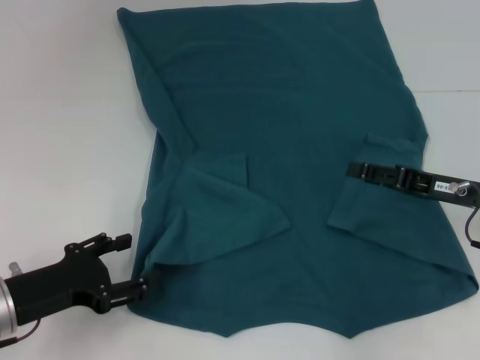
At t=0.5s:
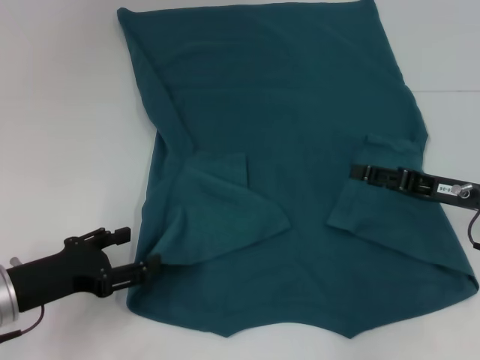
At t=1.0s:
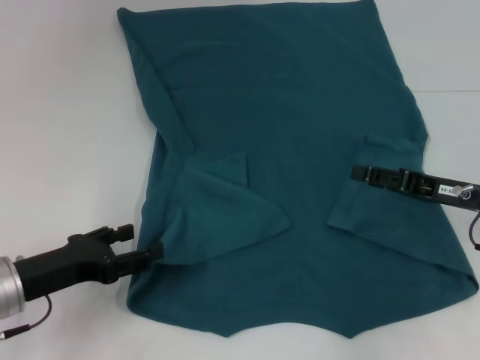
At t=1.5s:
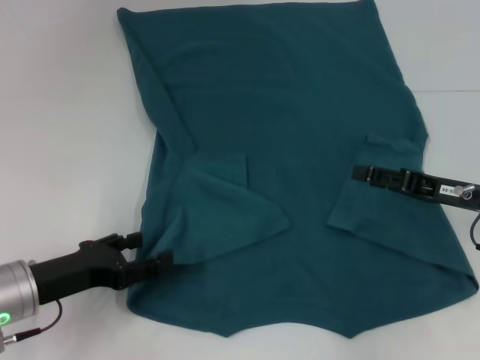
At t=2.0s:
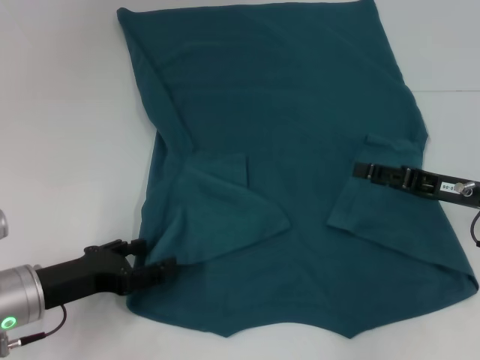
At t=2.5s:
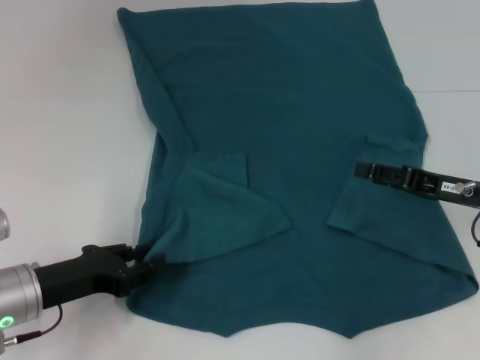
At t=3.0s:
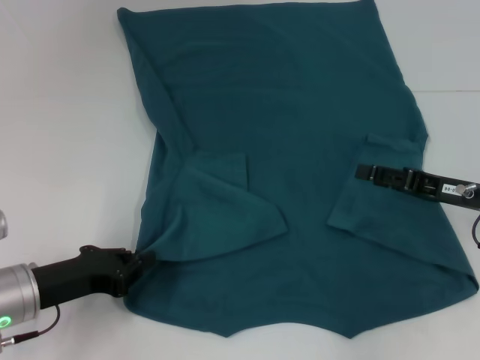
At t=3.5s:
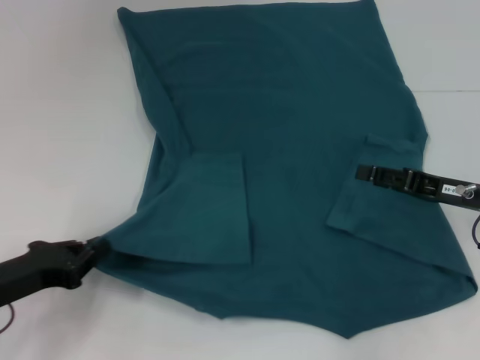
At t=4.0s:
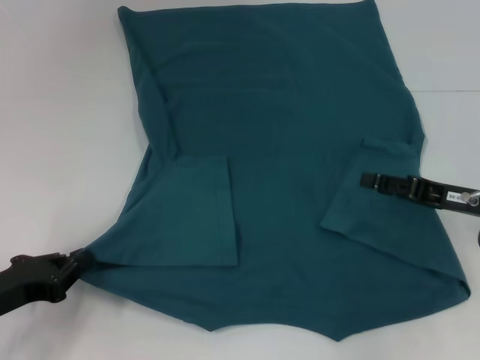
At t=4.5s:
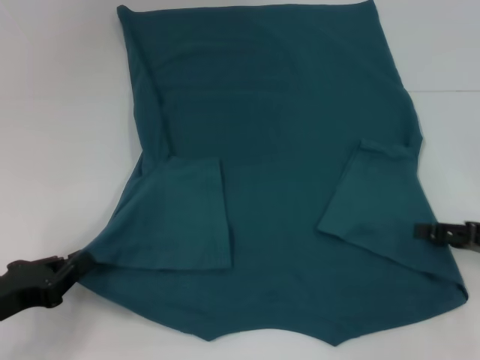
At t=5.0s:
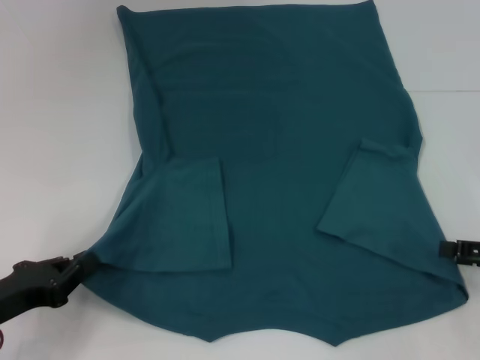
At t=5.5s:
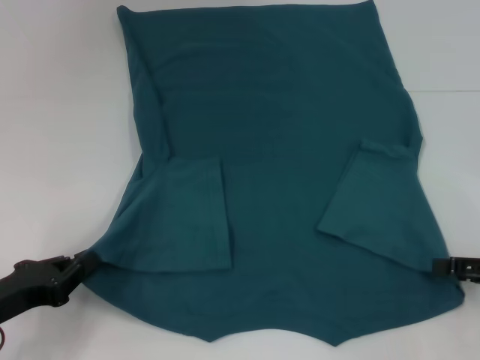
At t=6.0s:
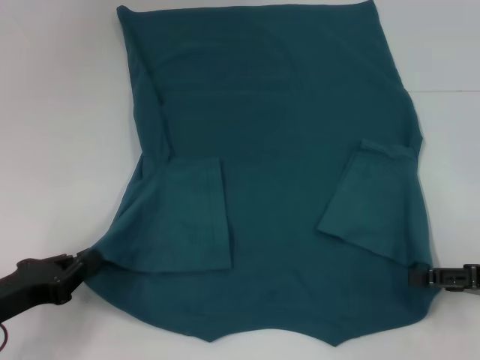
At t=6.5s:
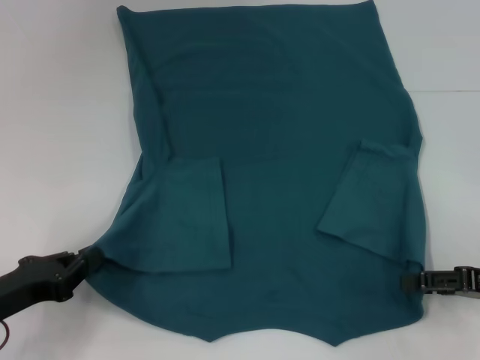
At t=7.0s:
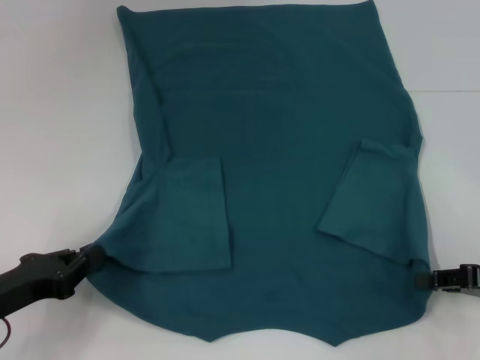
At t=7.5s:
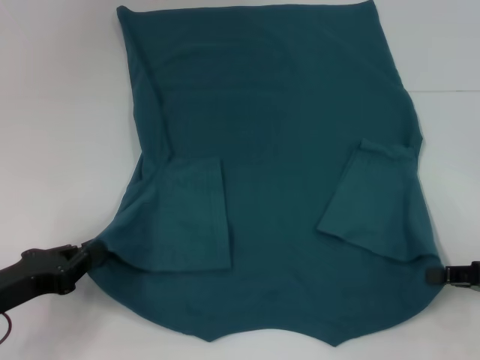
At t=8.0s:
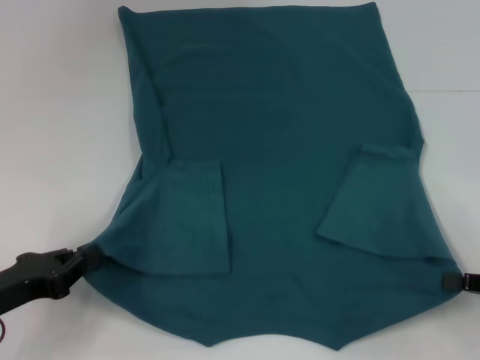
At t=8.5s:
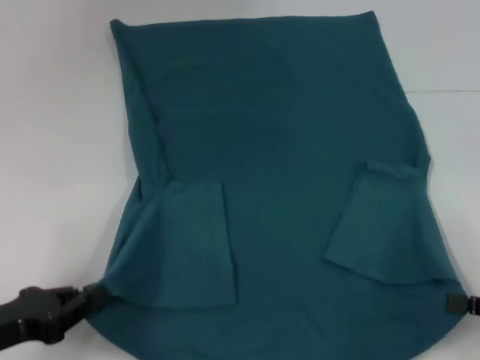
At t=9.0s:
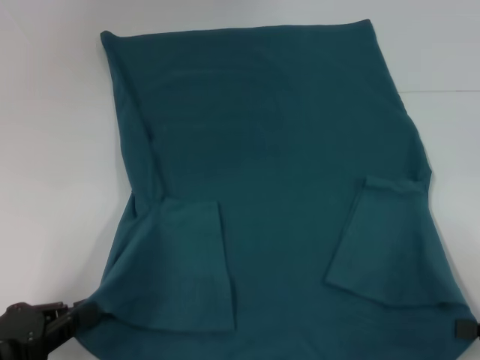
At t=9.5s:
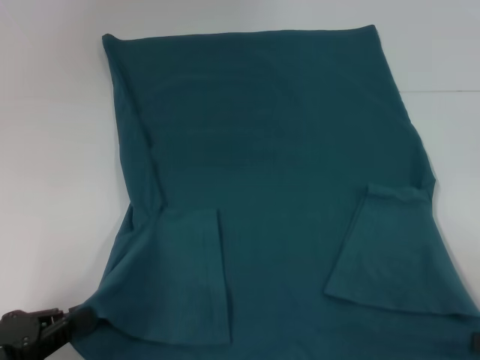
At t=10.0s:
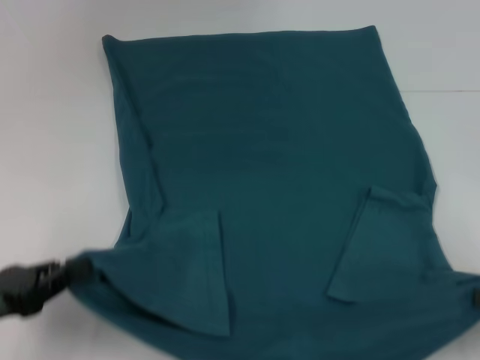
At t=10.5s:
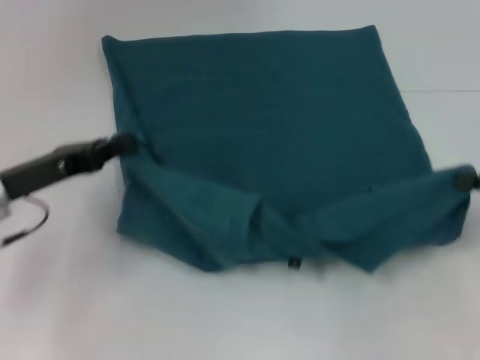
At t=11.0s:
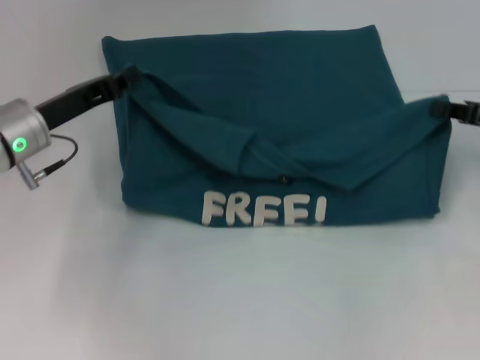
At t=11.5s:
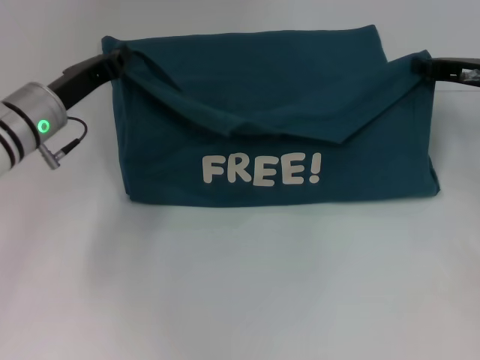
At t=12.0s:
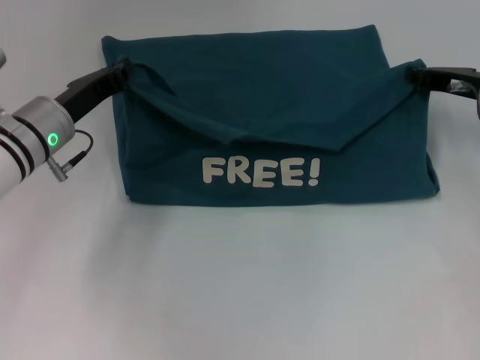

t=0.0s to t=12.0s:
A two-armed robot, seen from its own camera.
Step, t=0.0s to t=3.0s: Grab the bottom left corner with your left hand.
Step, t=3.5s to t=6.5s: Grab the bottom right corner with your right hand.
t=0.0s to t=2.0s: The grippers stay close to where they were, moving slightly.
t=2.0s to t=4.0s: The left gripper shifts roughly 5 cm to the left, and closes its fingers.
t=4.0s to t=6.0s: The right gripper travels backward and to the right by roughly 10 cm.
t=6.0s to t=8.0s: The right gripper closes its fingers.
t=10.0s to t=12.0s: The left gripper goes some 25 cm forward and to the right. Meanwhile the right gripper heads forward and to the left, covering approximately 25 cm.

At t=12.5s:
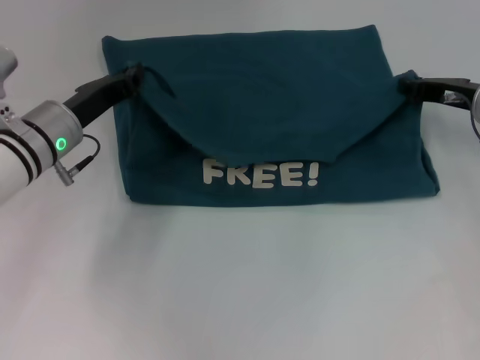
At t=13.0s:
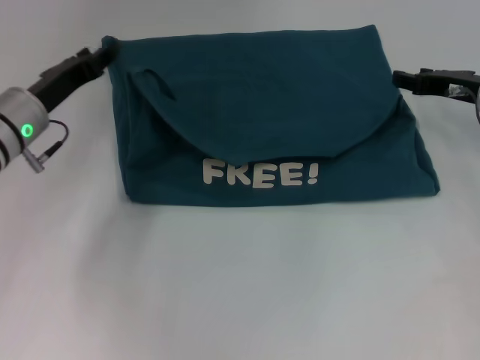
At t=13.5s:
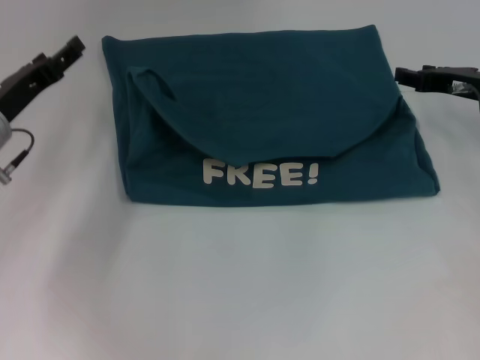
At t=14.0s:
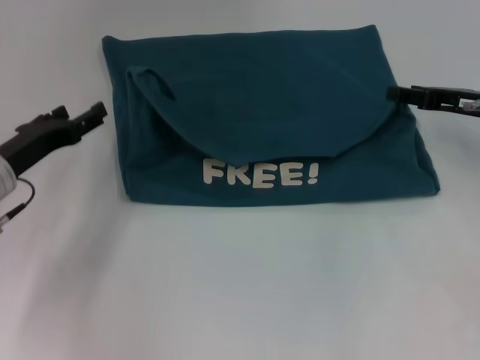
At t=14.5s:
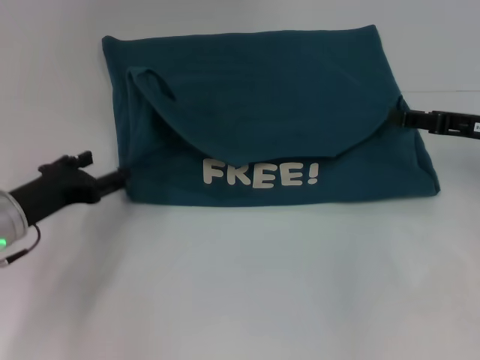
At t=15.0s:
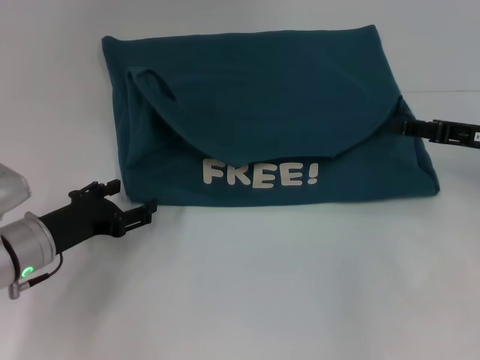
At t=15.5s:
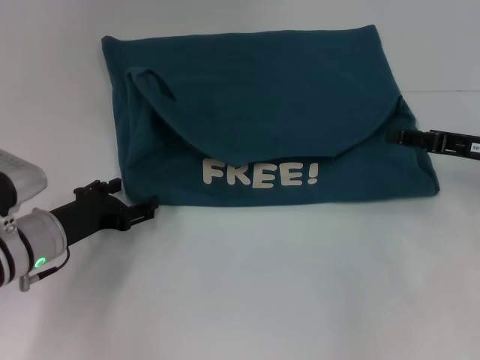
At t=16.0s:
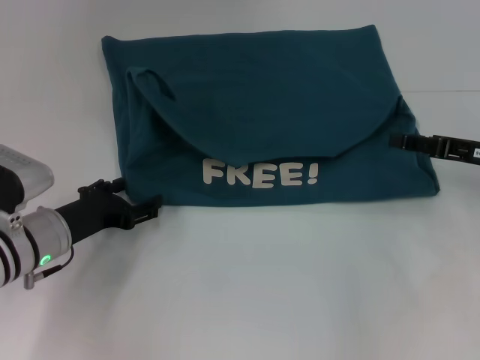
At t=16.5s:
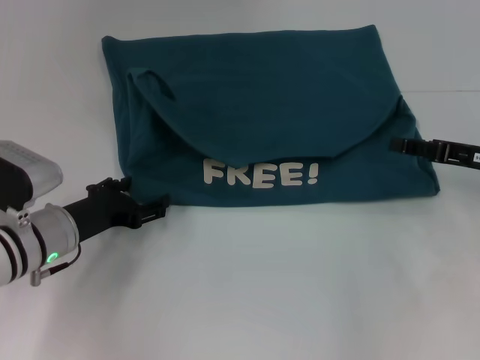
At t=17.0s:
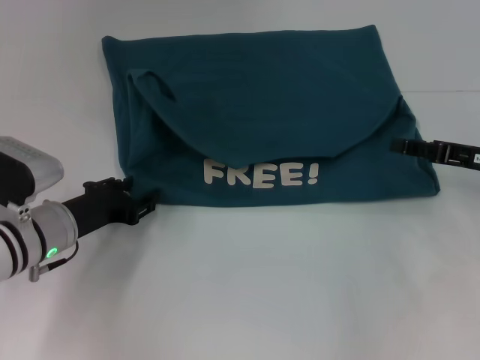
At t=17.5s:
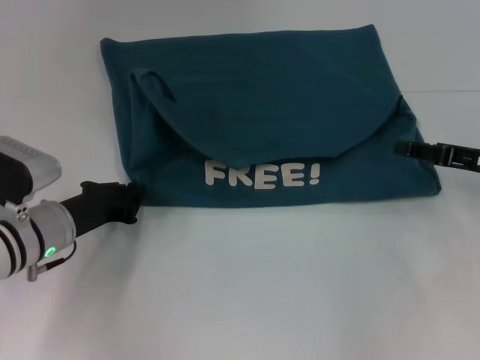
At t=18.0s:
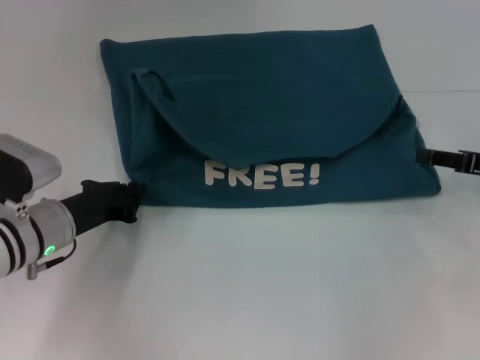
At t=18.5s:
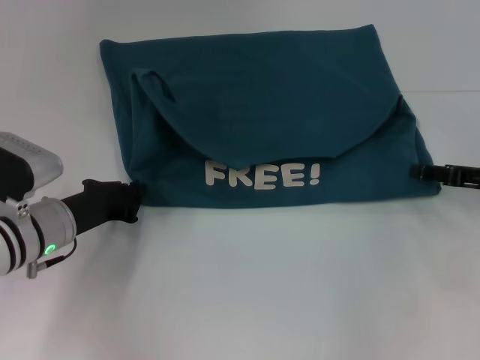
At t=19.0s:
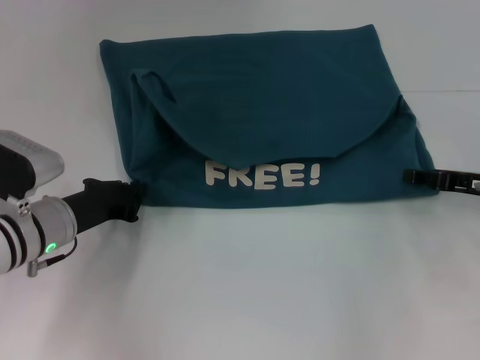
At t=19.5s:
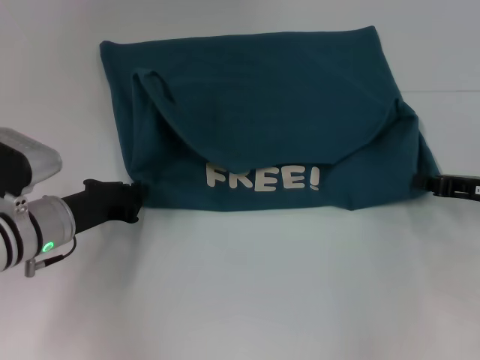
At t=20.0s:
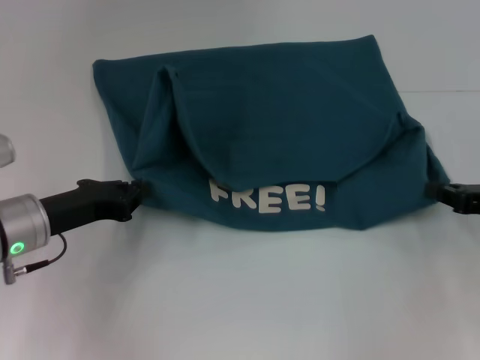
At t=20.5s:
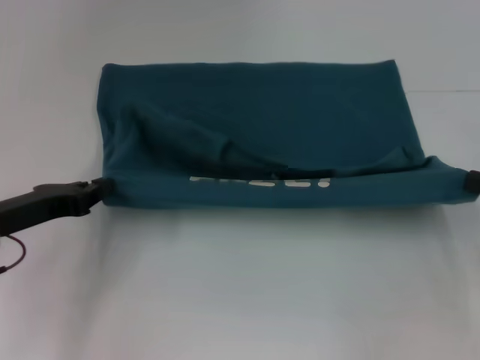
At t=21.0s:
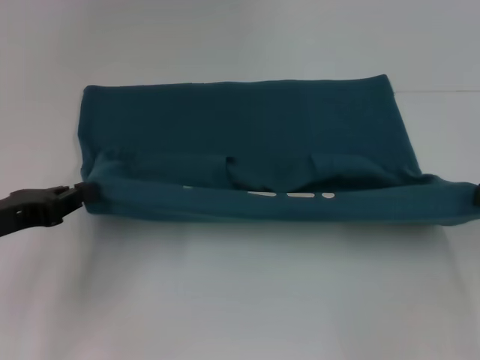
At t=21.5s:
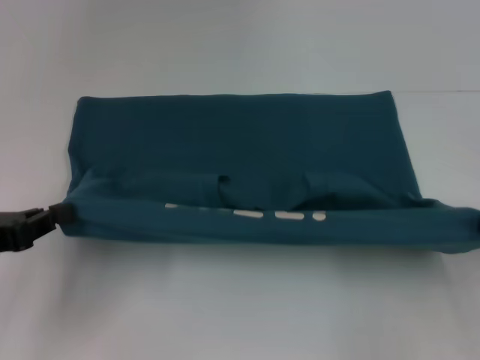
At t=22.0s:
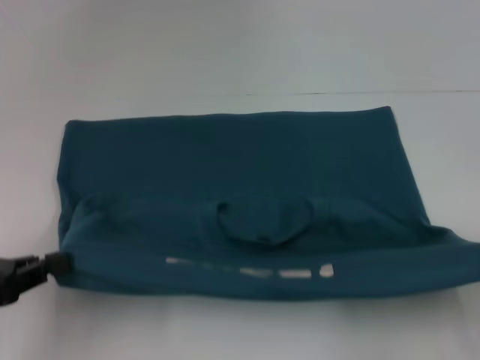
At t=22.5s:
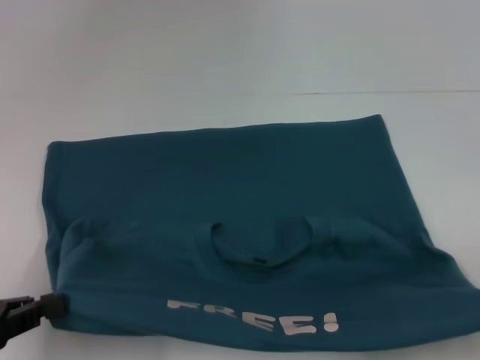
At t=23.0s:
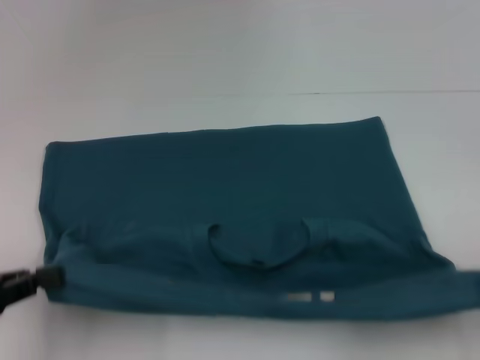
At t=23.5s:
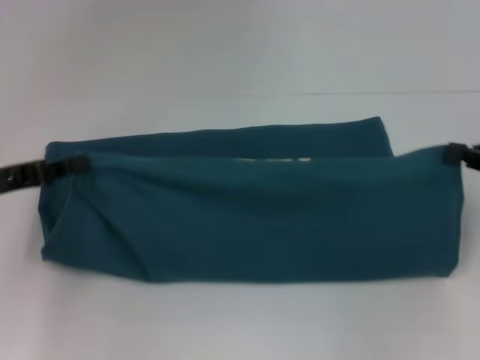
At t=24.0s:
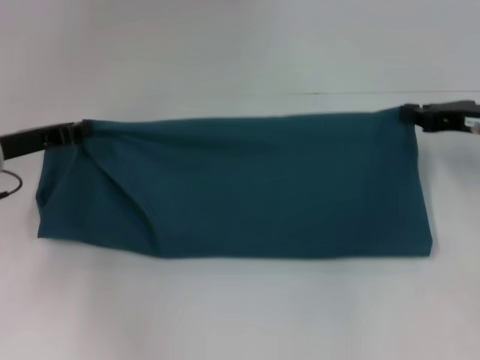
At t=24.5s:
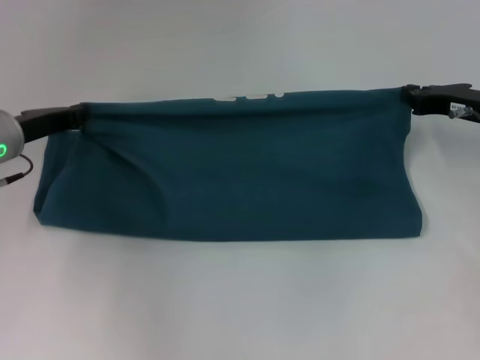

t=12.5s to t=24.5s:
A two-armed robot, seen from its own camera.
Step, t=13.5s to t=22.5s: Pull the clothes with your left hand.
Step, t=13.5s to t=22.5s: Pull the clothes with your right hand.
t=12.5s to t=14.5s: The right gripper goes roughly 5 cm backward, and opens up. Meanwhile the left gripper shifts about 10 cm backward and to the left, and opens its fingers.
t=14.5s to t=16.5s: The left gripper moves roughly 5 cm.
t=16.5s to t=18.5s: The left gripper closes its fingers.
t=18.5s to t=20.5s: The left gripper is displaced to the left and upward by approximately 10 cm, while the right gripper goes approximately 5 cm backward, and closes up.
t=20.5s to t=22.5s: The left gripper shifts about 15 cm backward and to the left; the right gripper goes some 10 cm backward.
t=22.5s to t=24.5s: The left gripper is displaced forward by approximately 20 cm; the right gripper moves forward and to the left, about 25 cm.

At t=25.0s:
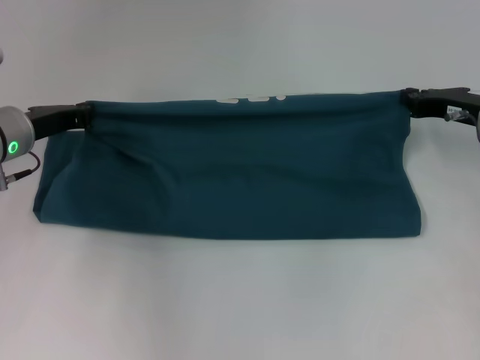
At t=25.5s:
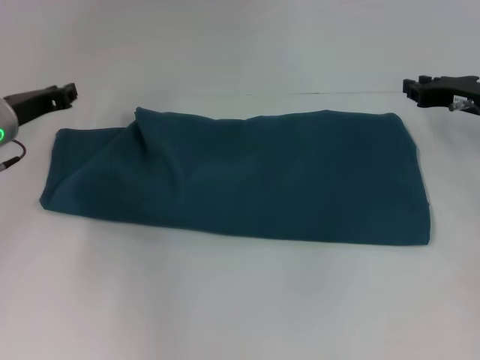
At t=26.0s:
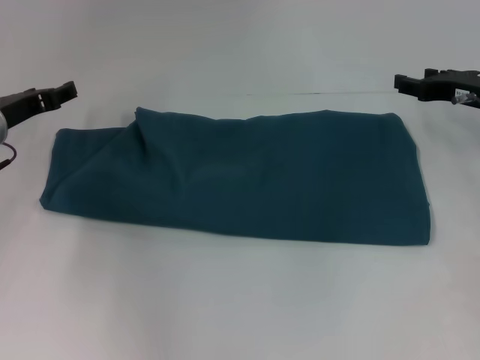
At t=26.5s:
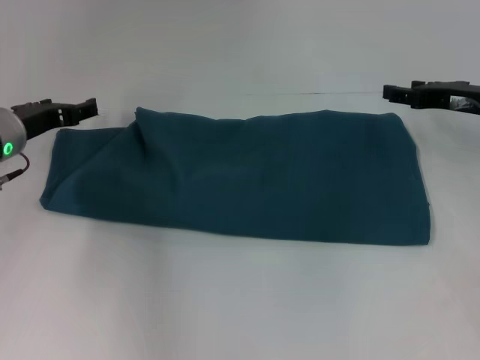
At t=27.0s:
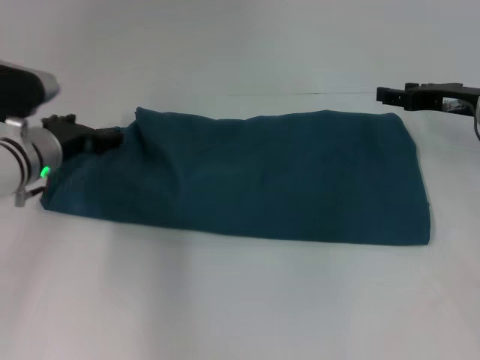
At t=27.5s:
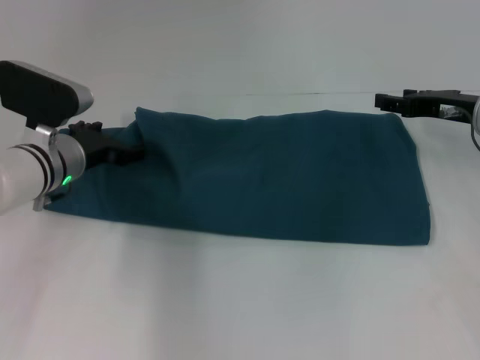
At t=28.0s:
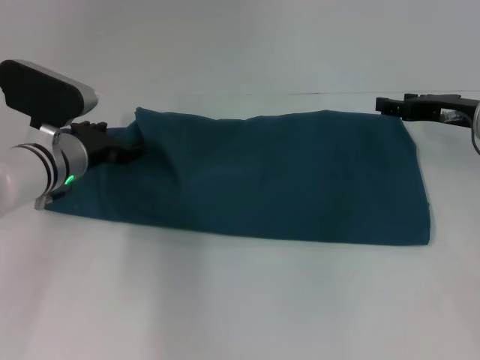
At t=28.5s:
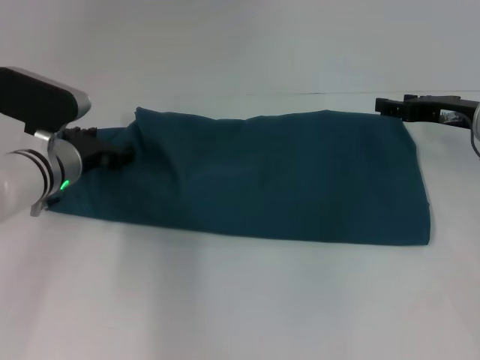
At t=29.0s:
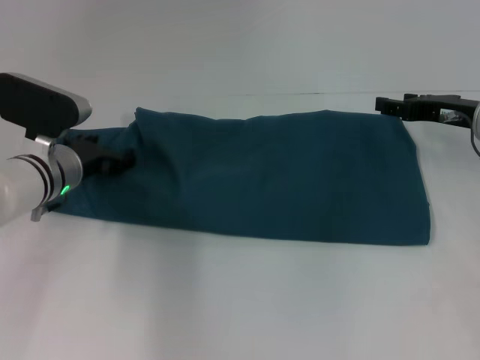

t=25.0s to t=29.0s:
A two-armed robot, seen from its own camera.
t=25.0s to t=27.0s: The right gripper opens up. Meanwhile the left gripper opens.
t=27.0s to t=29.0s: There are only small adjustments of the grippers.
